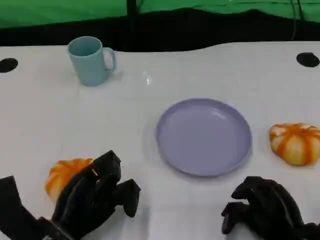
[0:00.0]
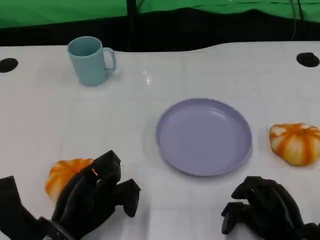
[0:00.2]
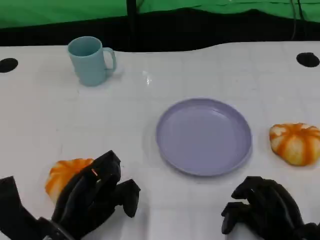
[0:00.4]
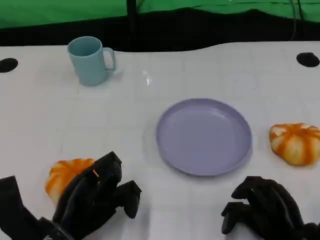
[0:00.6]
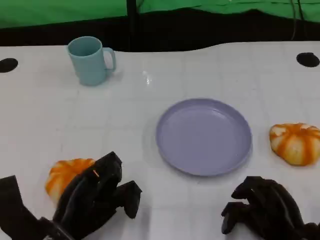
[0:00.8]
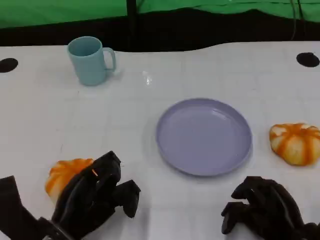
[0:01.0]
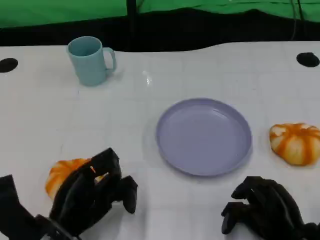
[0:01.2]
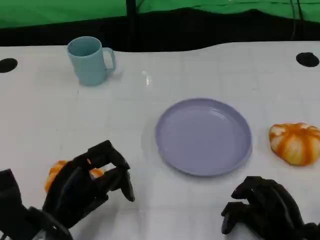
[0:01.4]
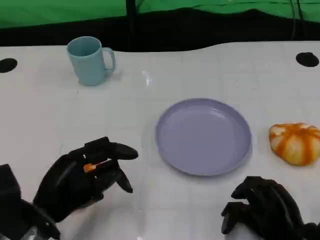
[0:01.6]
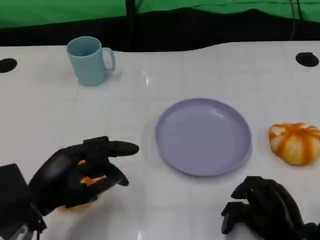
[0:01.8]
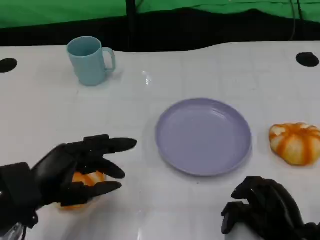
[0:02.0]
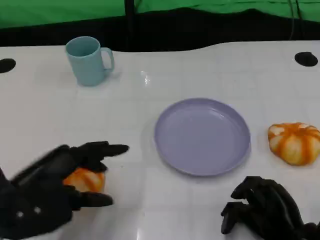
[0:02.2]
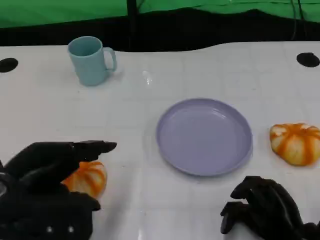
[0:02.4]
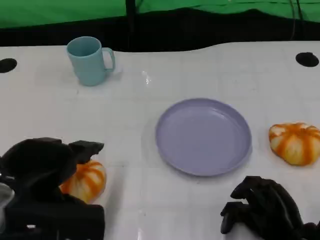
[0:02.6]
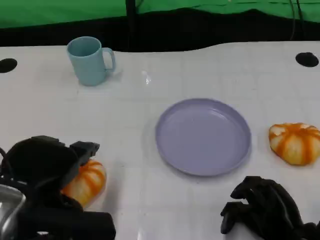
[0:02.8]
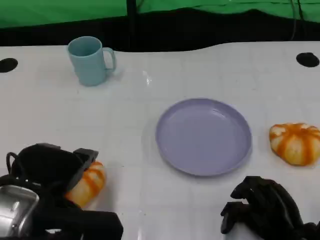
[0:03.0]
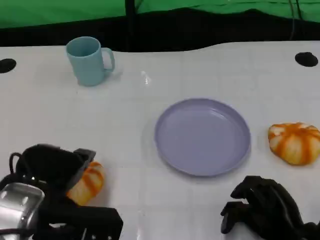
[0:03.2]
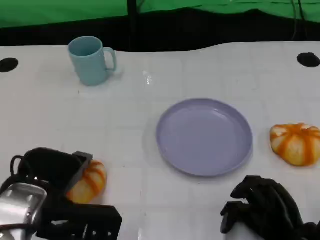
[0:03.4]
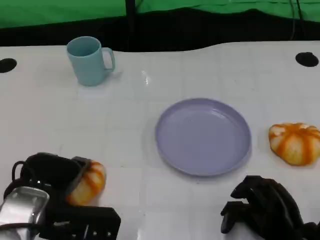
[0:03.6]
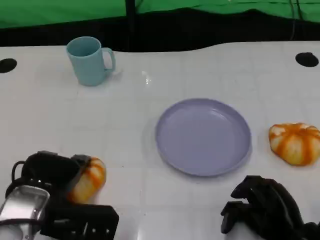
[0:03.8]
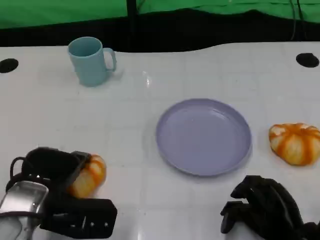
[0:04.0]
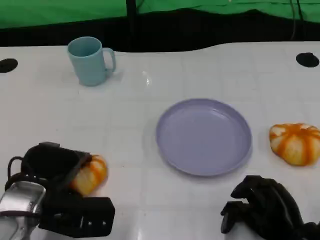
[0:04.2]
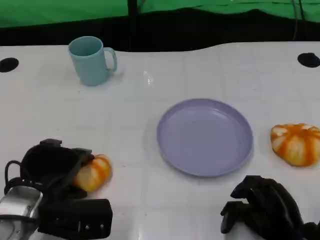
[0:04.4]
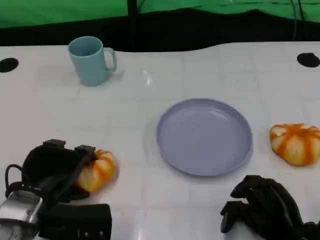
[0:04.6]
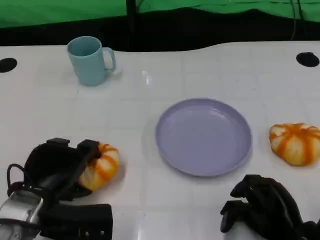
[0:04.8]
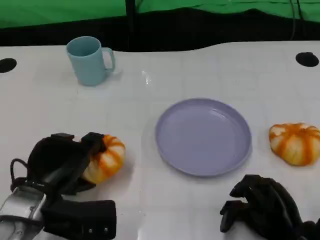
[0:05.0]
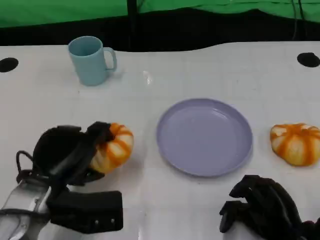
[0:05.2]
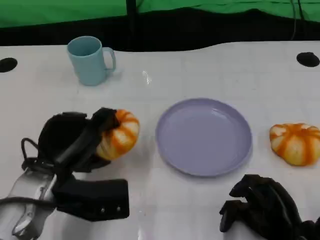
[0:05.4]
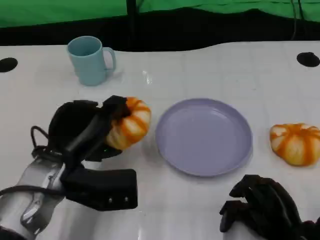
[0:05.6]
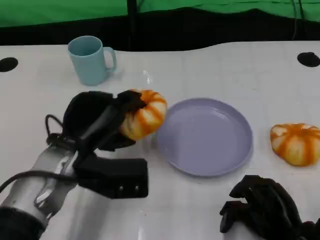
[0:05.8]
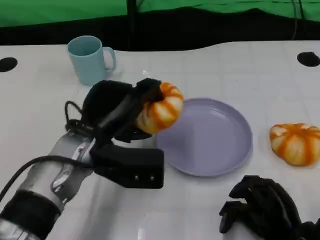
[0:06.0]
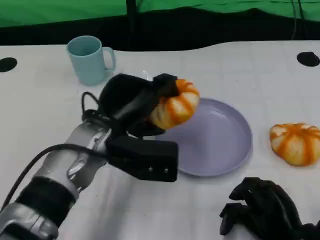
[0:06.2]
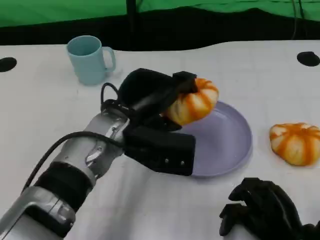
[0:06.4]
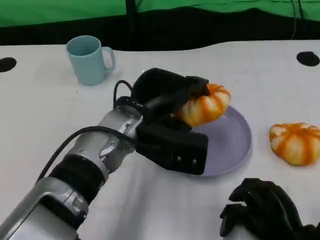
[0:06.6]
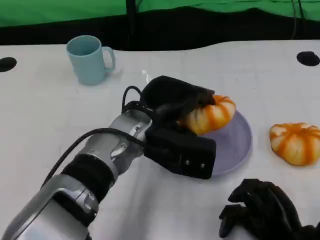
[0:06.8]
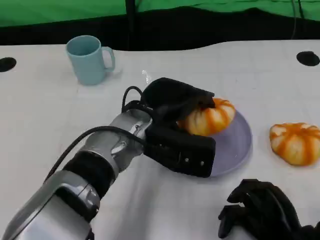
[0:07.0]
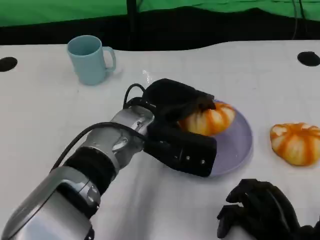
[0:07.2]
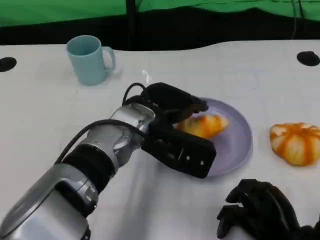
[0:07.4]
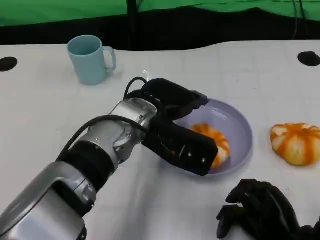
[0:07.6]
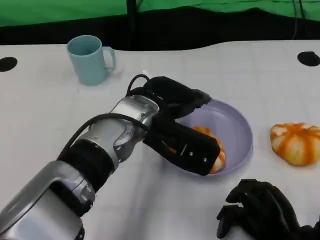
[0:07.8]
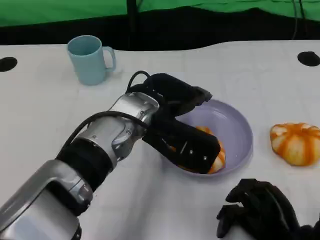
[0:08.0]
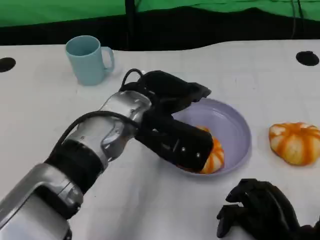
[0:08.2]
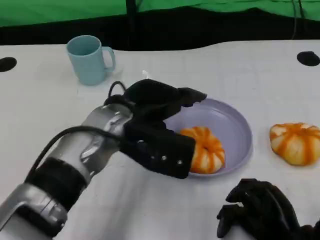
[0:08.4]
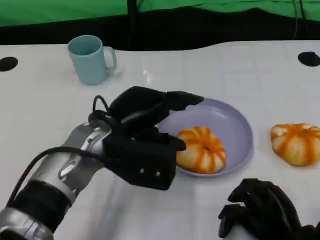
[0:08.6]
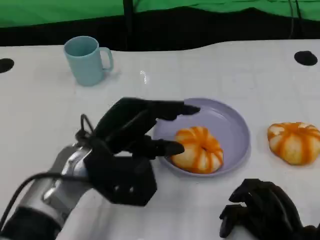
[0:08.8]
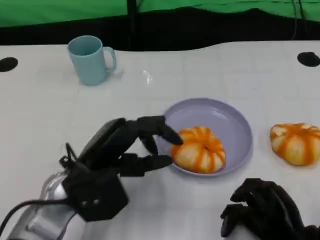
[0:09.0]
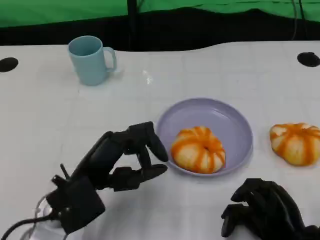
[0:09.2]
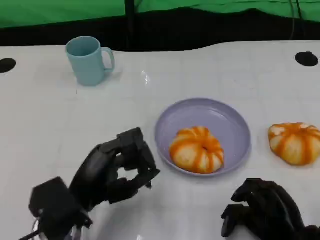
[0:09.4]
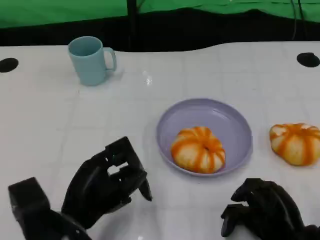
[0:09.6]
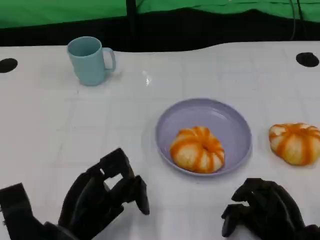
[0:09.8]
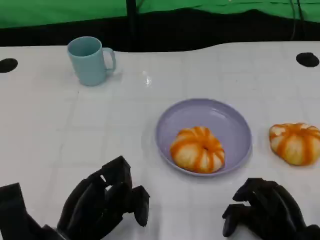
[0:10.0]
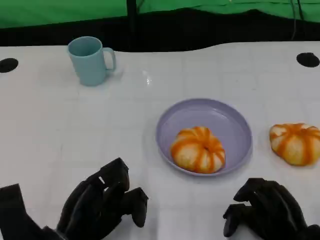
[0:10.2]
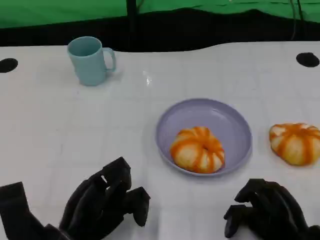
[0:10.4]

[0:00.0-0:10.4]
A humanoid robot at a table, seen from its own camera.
Task of the whole recording: Grasp the bread from the table and place it into the plate.
0:01.4 to 0:03.0: The left hand is displaced upward by about 10 cm.
0:03.0 to 0:04.4: The left hand is displaced downward by approximately 10 cm.
0:04.4 to 0:06.0: The left hand shifts about 10 cm to the right, upward and forward.
0:06.0 to 0:07.4: The left hand travels to the right by approximately 5 cm.
0:07.4 to 0:09.0: The left hand goes some 10 cm to the left and backward.
0:09.0 to 0:10.4: The left hand heads downward and backward, covering approximately 10 cm.

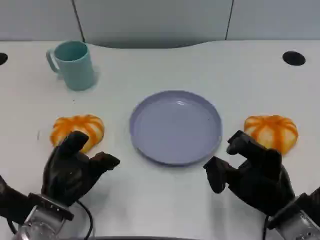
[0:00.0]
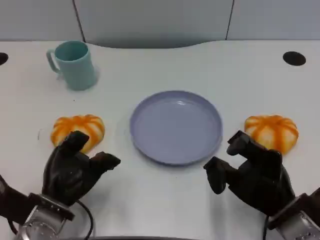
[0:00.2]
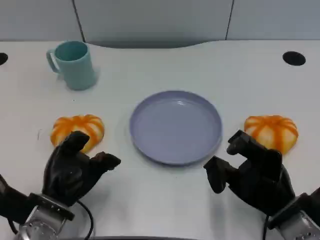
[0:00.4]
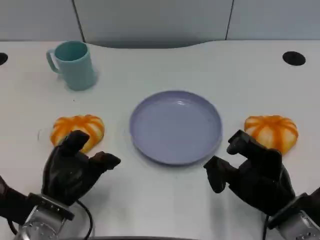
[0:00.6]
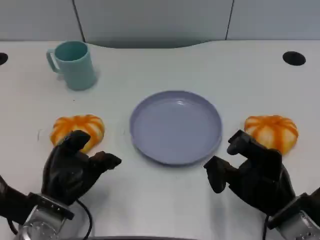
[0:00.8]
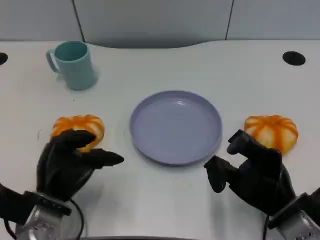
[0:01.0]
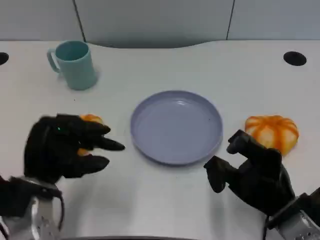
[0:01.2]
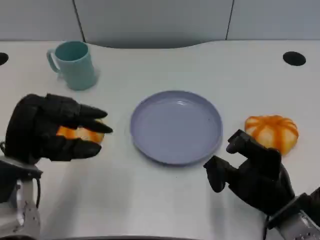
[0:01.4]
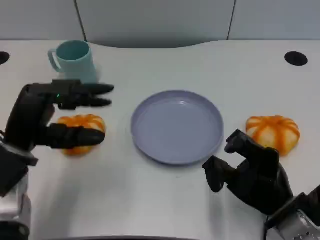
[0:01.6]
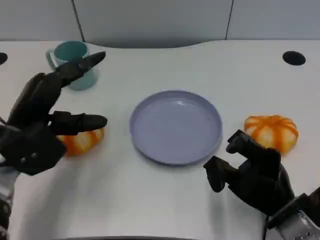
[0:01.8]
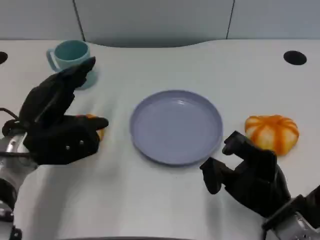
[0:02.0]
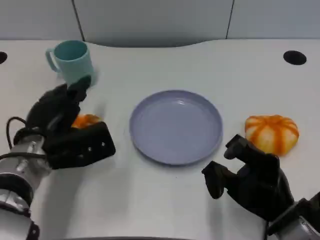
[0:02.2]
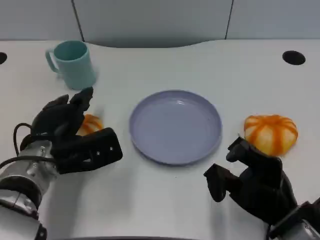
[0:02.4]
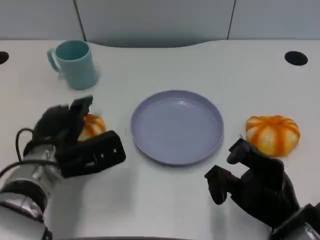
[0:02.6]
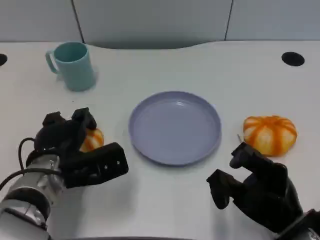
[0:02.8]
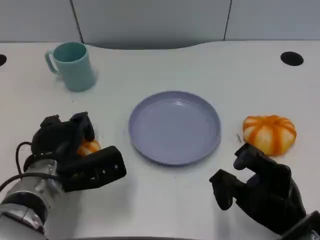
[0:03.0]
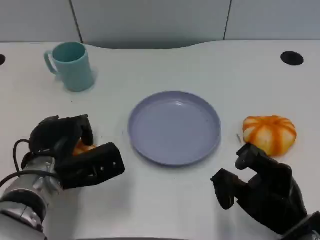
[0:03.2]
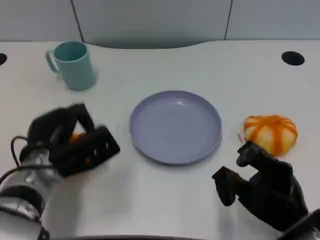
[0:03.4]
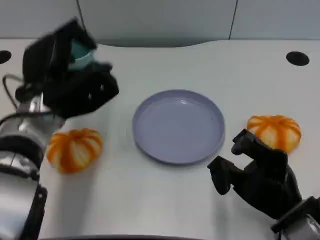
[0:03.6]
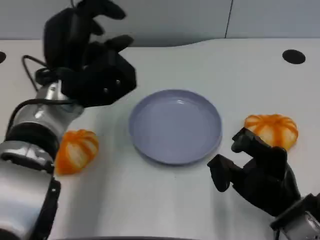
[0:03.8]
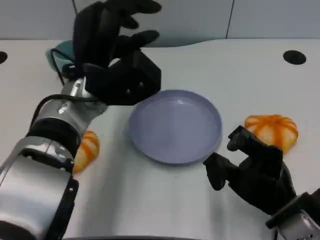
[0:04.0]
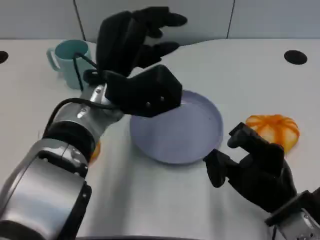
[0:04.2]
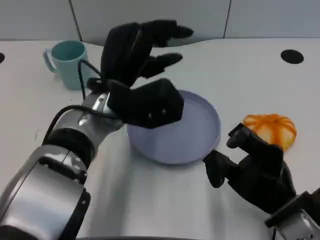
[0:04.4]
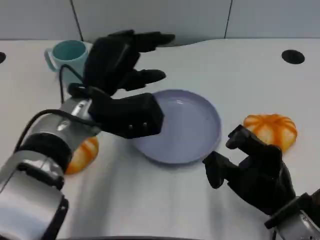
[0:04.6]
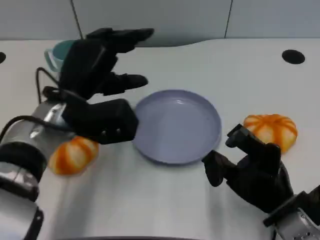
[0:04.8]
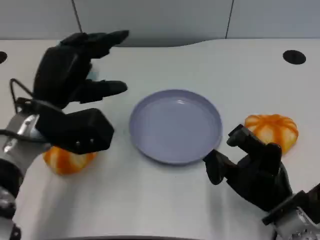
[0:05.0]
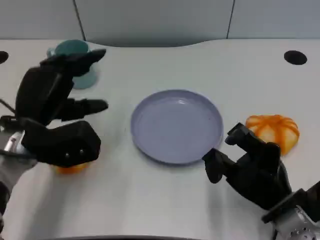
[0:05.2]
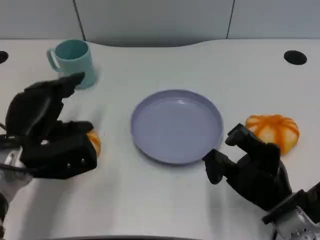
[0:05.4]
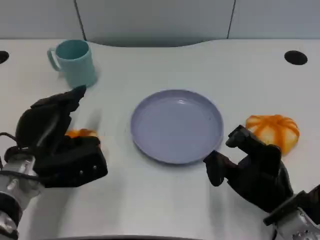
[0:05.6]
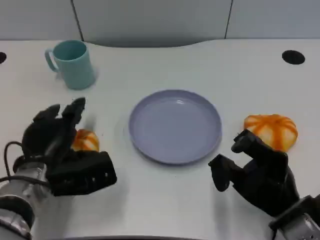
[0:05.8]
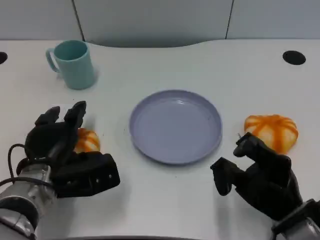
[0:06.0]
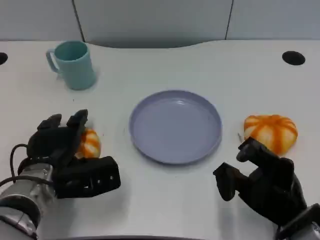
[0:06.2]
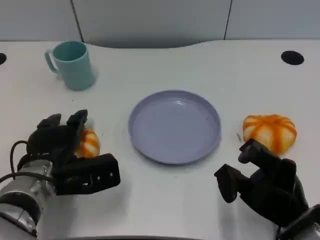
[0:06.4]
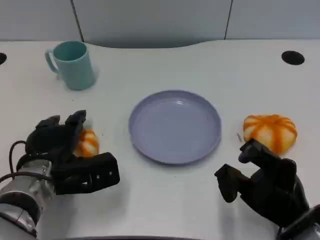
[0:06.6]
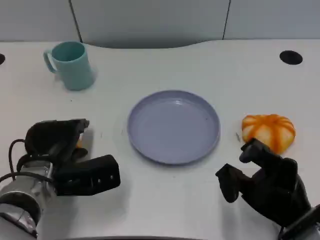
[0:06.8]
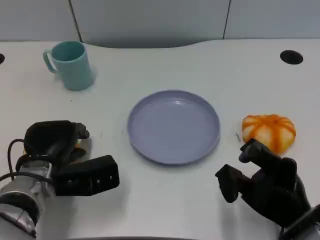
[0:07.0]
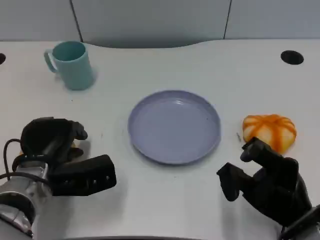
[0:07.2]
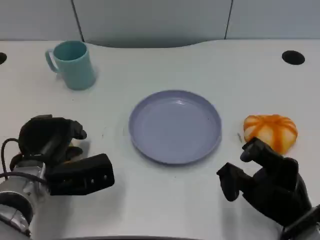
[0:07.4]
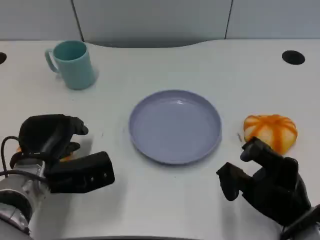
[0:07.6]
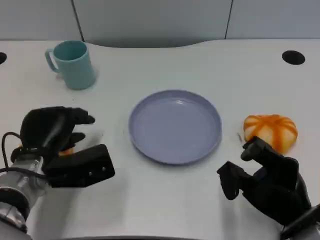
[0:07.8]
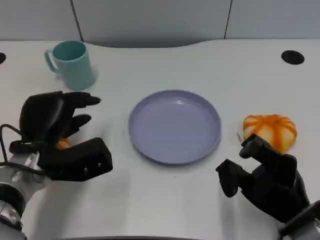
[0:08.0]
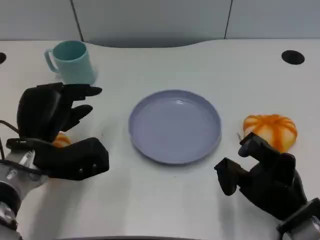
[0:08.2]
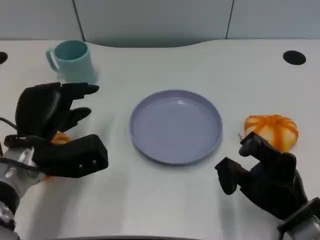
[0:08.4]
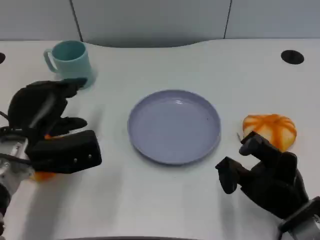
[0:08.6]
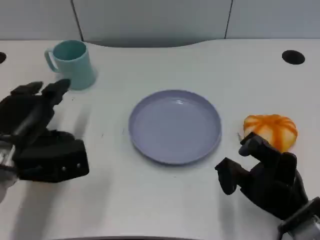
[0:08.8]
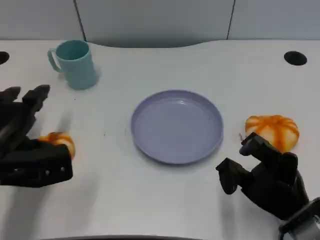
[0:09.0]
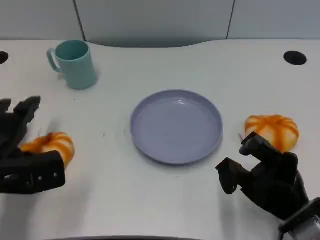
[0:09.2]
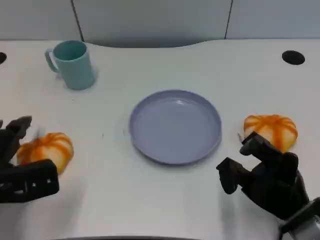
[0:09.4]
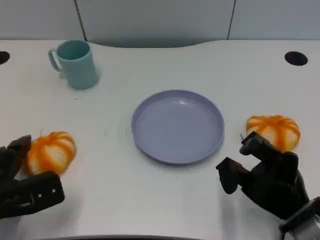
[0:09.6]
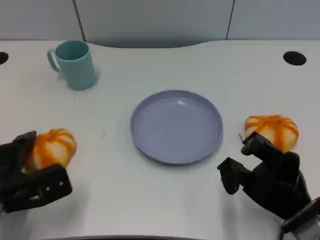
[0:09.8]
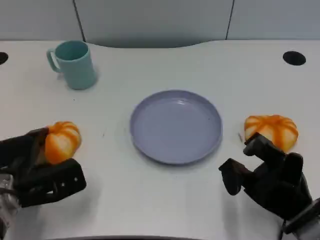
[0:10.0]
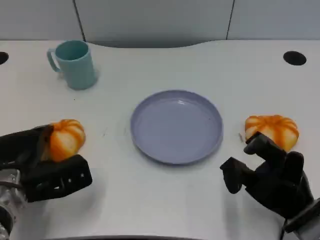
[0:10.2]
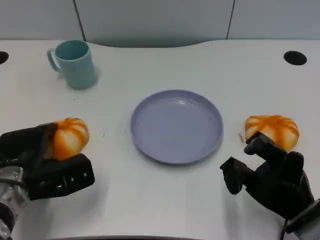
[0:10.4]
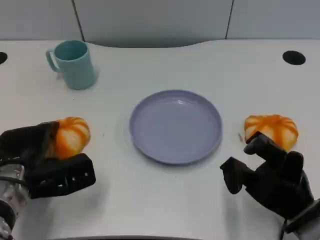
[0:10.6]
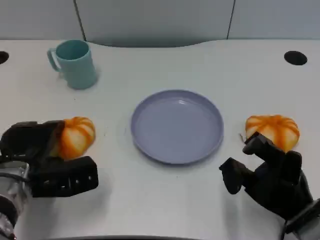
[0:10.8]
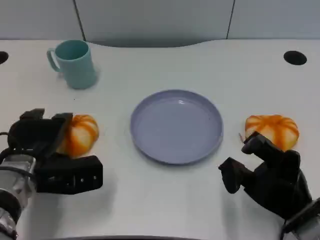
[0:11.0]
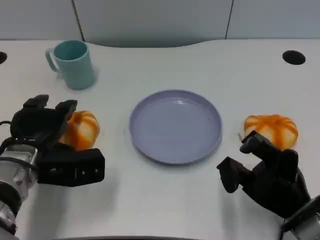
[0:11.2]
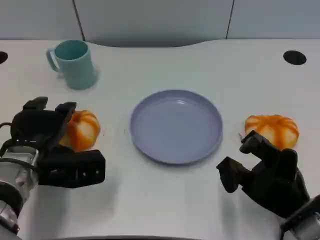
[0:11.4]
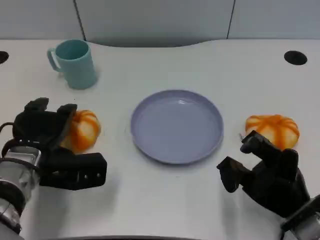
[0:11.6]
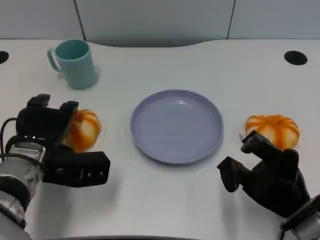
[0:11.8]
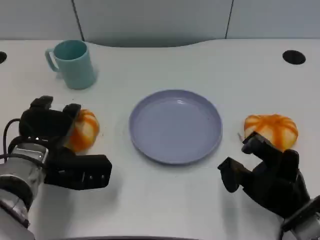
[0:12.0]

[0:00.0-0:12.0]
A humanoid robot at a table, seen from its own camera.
Task of the whole recording: Grasp the bread from the table and place it into the plate.
0:00.0 to 0:01.6: The left hand travels upward by approximately 10 cm.
0:01.6 to 0:03.0: The left hand is displaced downward by some 5 cm.
0:03.0 to 0:04.4: The left hand heads upward and to the right, covering some 15 cm.
0:04.4 to 0:06.0: The left hand travels downward and to the left by about 15 cm.
0:06.0 to 0:07.6: The hands move only a little.
0:07.6 to 0:09.0: The left hand shifts approximately 5 cm to the left.
0:09.0 to 0:10.4: The left hand shifts by some 5 cm.
